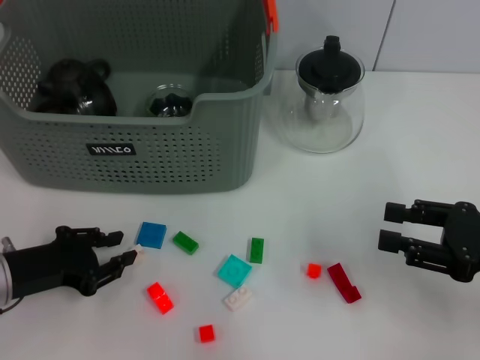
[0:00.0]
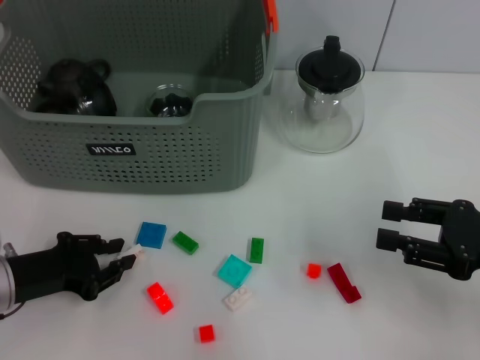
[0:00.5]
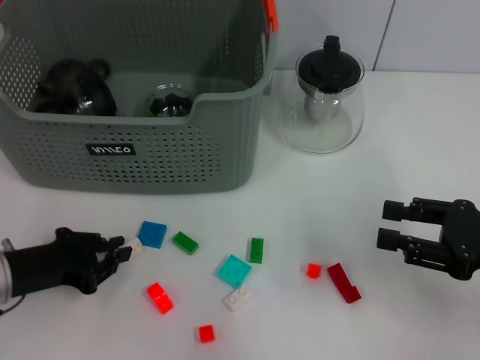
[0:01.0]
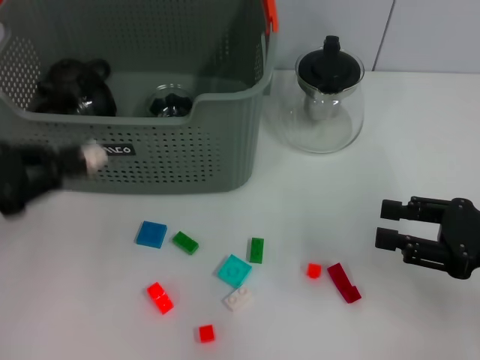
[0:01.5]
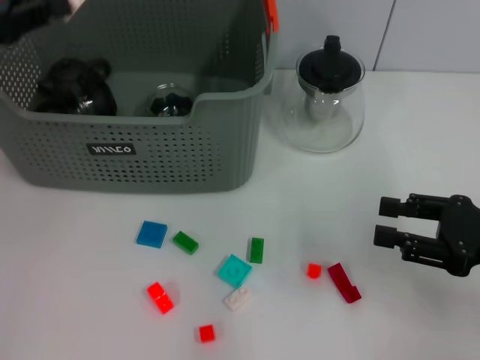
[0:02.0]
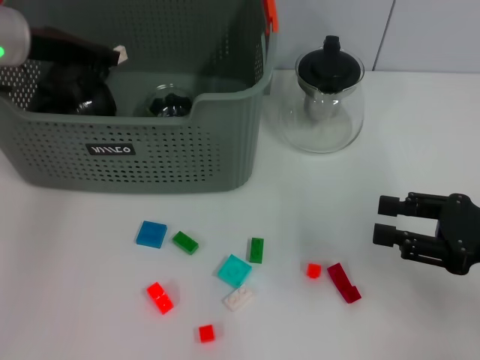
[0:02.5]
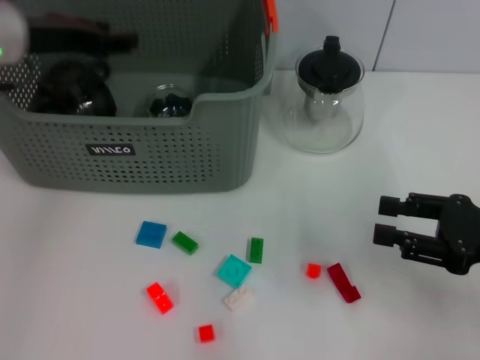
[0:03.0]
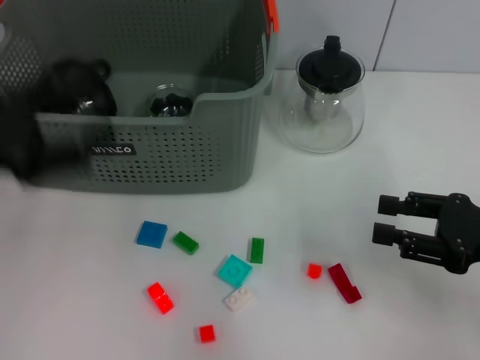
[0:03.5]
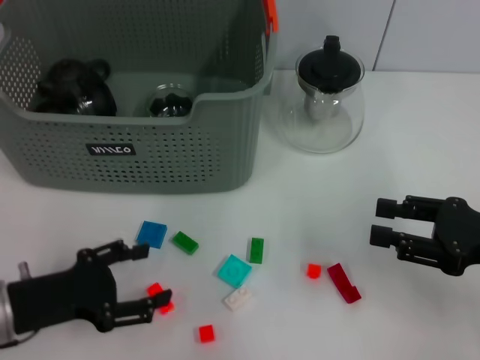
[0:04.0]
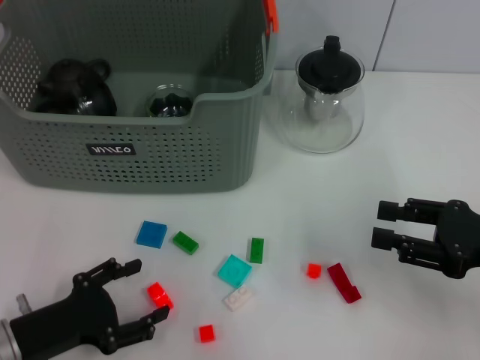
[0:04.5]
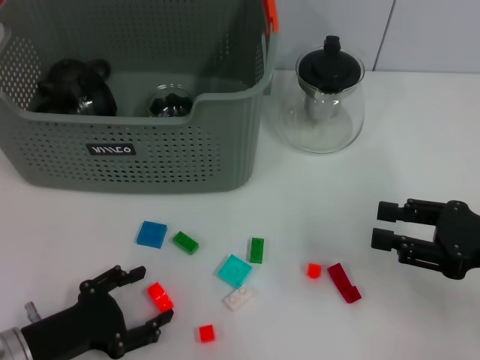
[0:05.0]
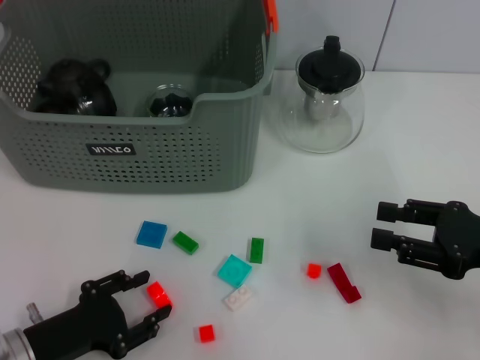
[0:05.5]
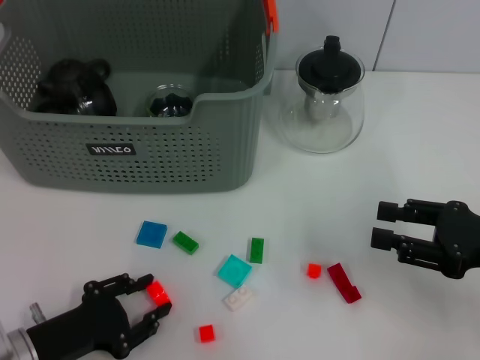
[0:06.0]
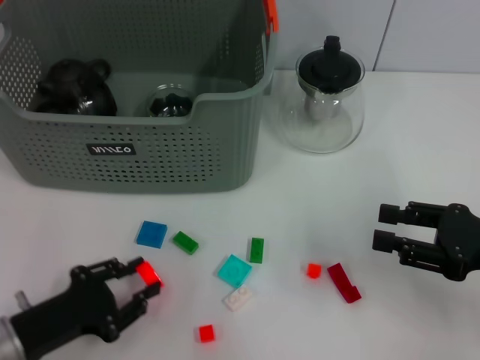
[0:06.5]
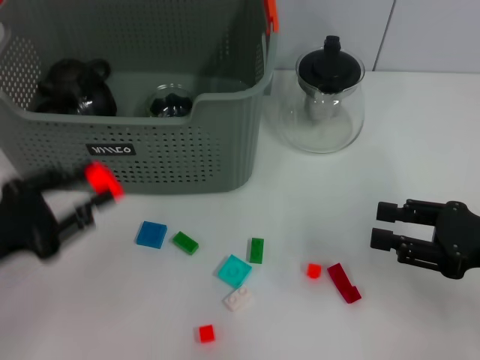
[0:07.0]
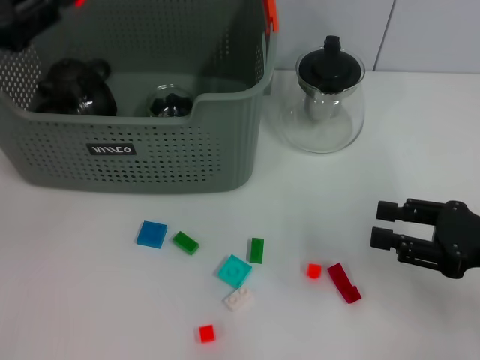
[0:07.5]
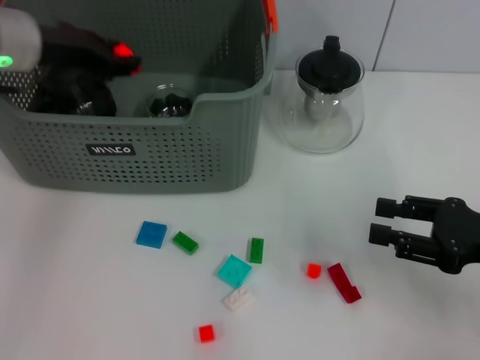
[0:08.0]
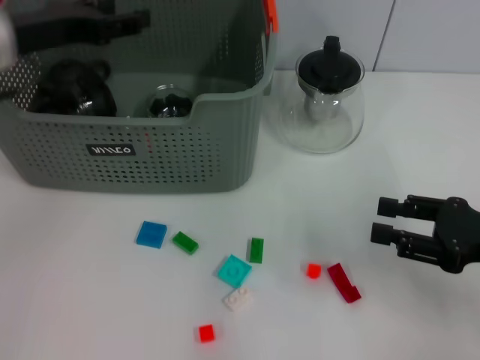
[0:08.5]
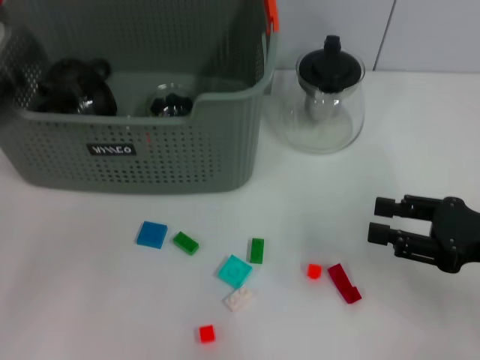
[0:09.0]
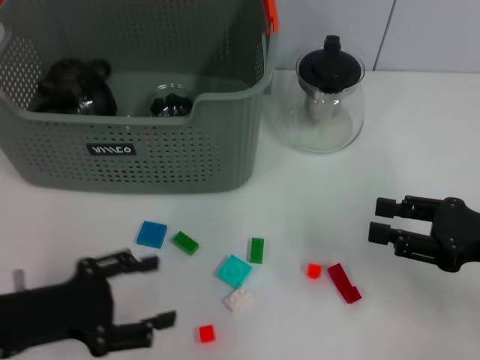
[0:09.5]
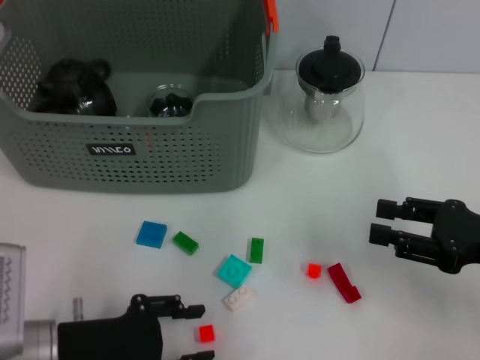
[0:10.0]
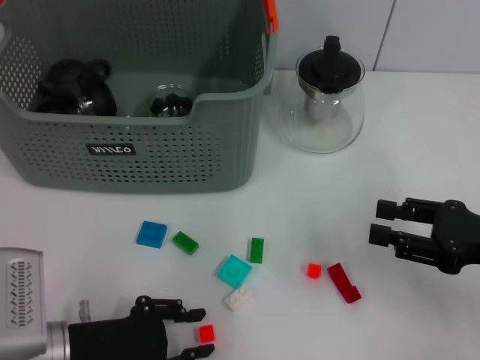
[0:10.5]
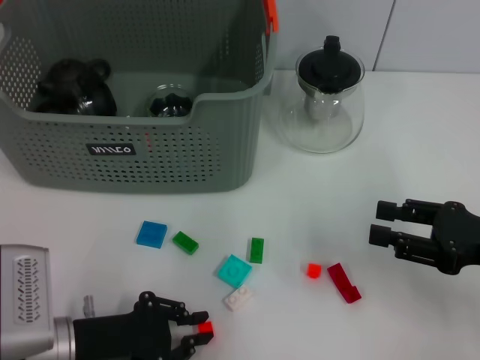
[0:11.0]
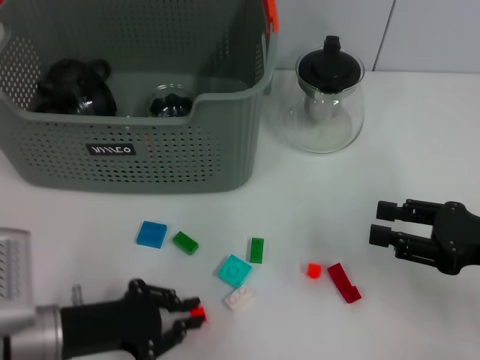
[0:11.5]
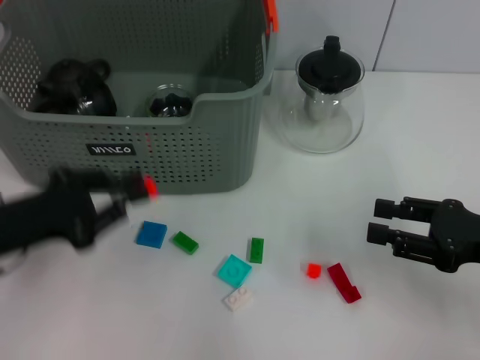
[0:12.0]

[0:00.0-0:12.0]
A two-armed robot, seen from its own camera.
Task of the whole recording: pick up the teacup on the table and place it into the storage bin, pick up the block on the table and place it into the storage bin.
Step, 0:01.5 to 0:03.0: Place the white block in the storage box with left gripper.
Step, 0:03.5 to 0:06.0: Grasp the orange block with left gripper.
Step, 0:06.5 to 0:08.5: Place the orange block in the storage box with left gripper.
Step, 0:09.0 to 0:11.0: Grasp the orange block with left gripper.
0:00.0 to 0:02.0: The left gripper moves upward and forward, roughly 20 cm.
0:02.0 to 0:04.0: The left gripper travels downward and backward by approximately 20 cm, and opens its fingers.
0:04.0 to 0:06.0: The left gripper goes some 5 cm downward.
0:06.0 to 0:08.0: The left gripper shifts about 30 cm forward and upward.
0:08.0 to 0:10.0: The left gripper is displaced backward and downward by about 30 cm, and opens and closes again.
0:10.0 to 0:12.0: The left gripper travels upward and to the left by about 10 cm, and closes.

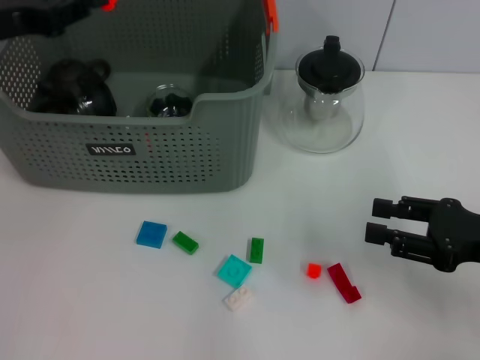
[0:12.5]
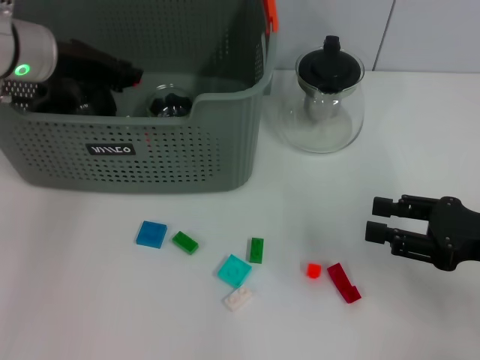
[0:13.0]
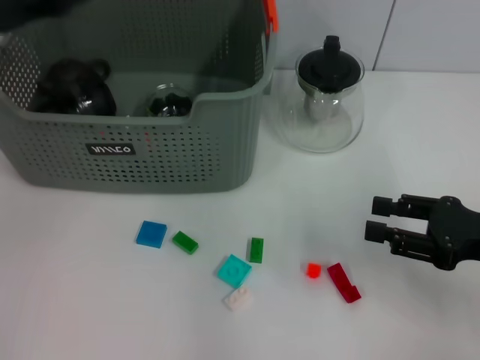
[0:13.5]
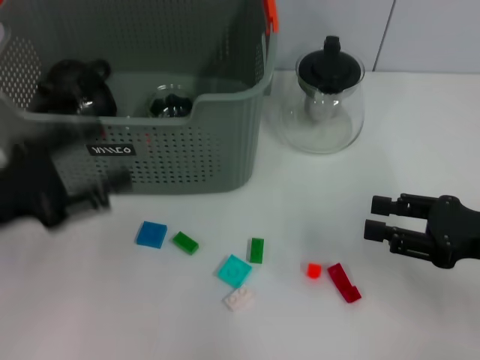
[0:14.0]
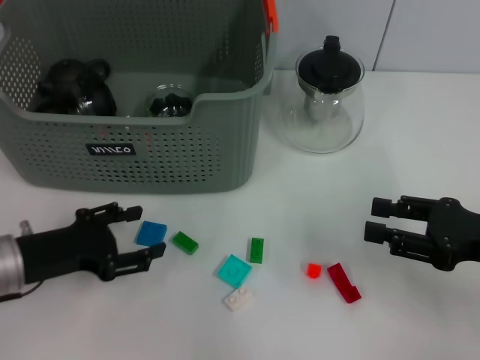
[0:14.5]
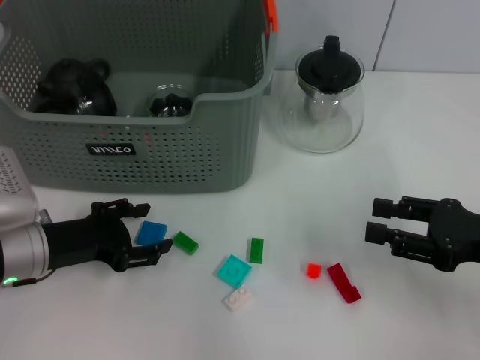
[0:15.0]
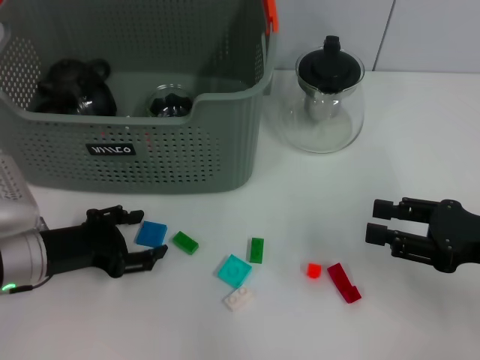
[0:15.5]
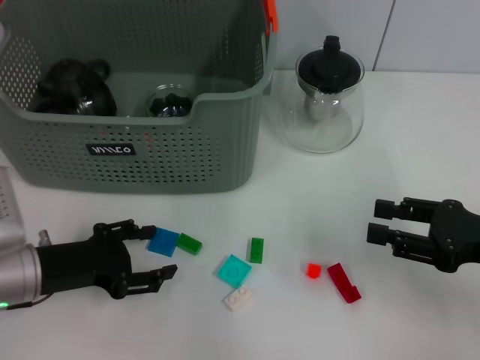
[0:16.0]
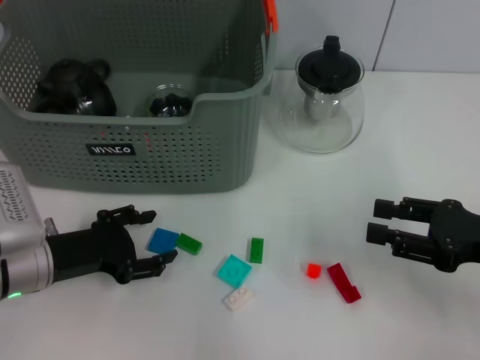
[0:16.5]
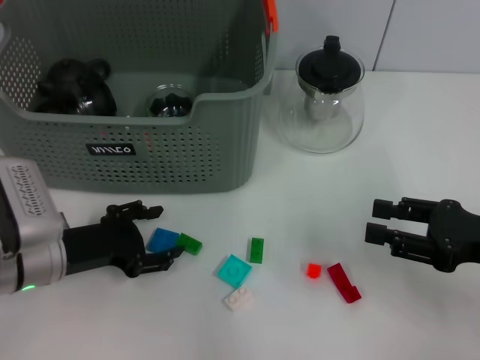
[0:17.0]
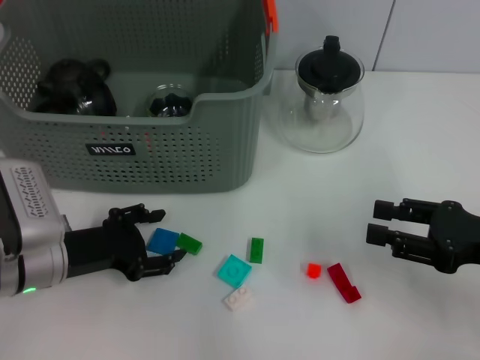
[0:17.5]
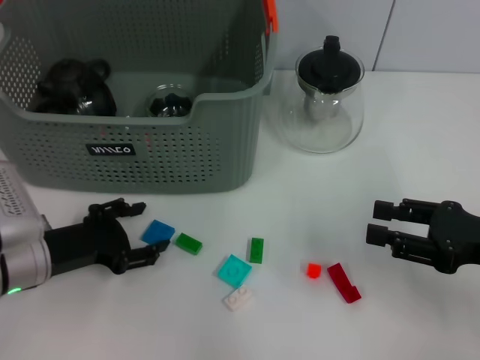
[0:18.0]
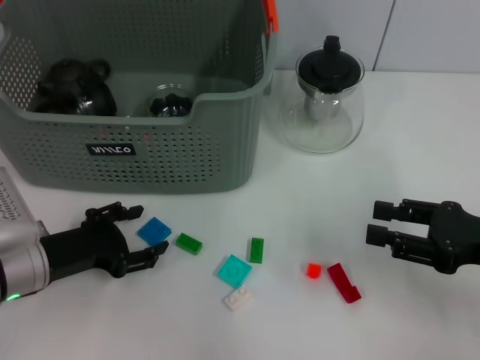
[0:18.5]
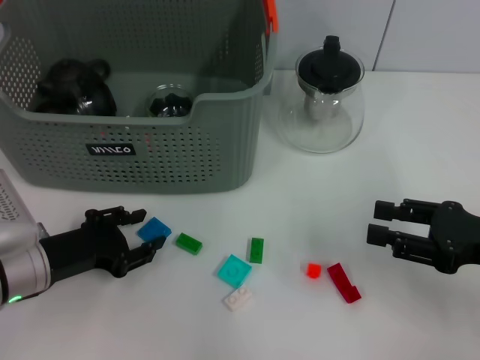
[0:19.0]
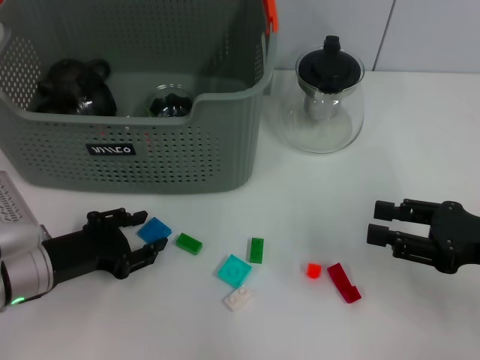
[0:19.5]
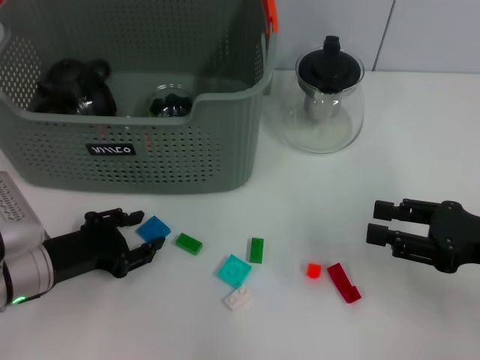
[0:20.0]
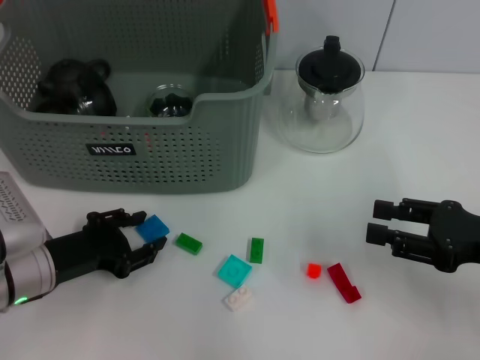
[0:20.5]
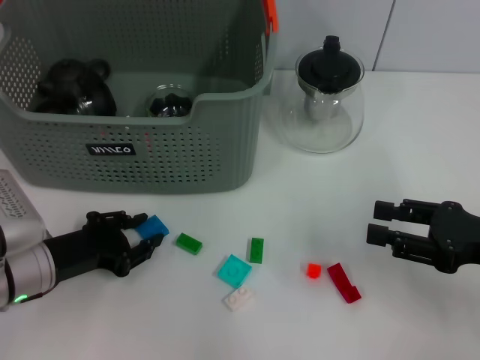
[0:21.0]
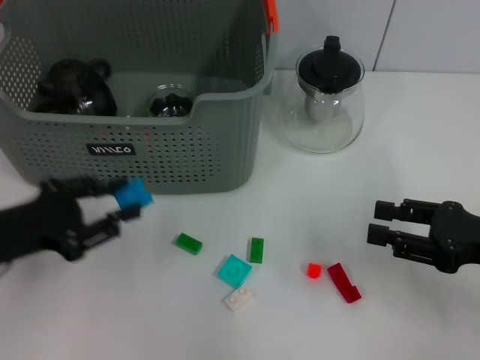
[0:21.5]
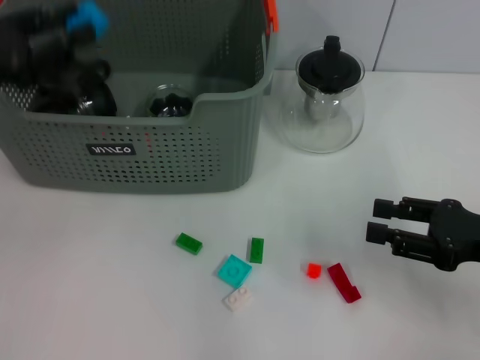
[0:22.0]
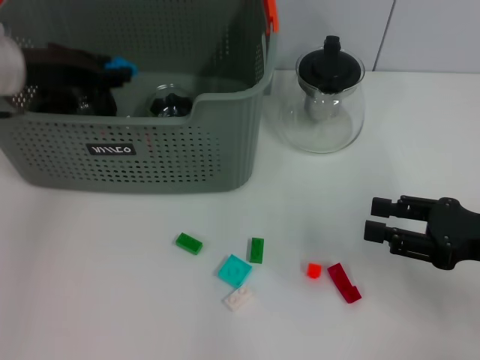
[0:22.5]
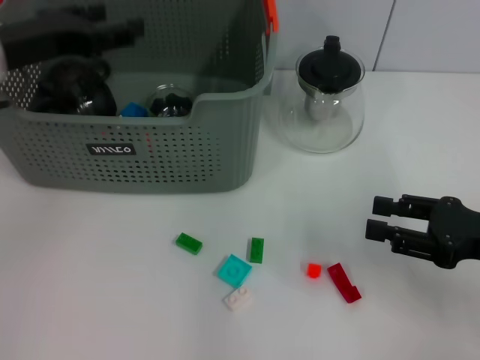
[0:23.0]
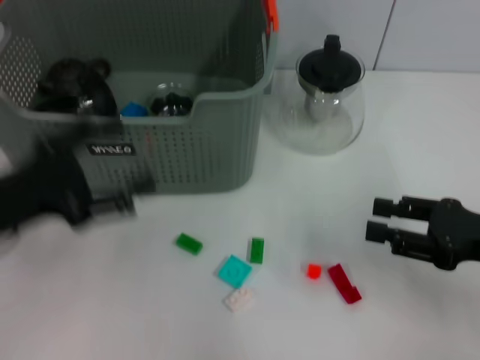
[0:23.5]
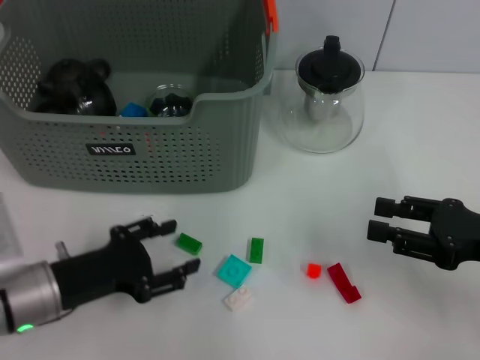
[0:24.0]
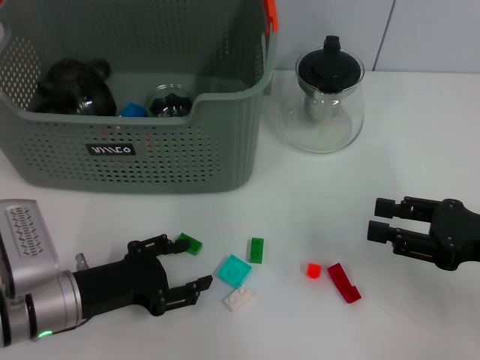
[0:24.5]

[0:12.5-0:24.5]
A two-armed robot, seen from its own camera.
Task of the whole recording: pick up the teacup on the table and place it into the storage bin, pick up the block on the table and place it into the storage bin.
Step, 0:14.0 to 0:21.0: Grasp the dark blue block with left gripper.
Step, 0:21.5 to 0:23.0: Place the dark blue block in the storage box with left gripper.
0:12.5 to 0:14.5: The left gripper goes some 20 cm downward and backward, and opens up.
0:14.5 to 0:18.5: The grippers move only a little.
0:18.5 to 0:20.5: Neither gripper changes place.
0:20.5 to 0:22.5: The left gripper is displaced upward and forward by roughly 20 cm.
0:22.5 to 0:24.5: The left gripper travels downward and backward by approximately 25 cm, and opens.

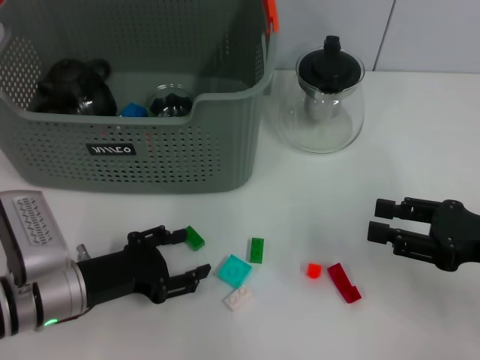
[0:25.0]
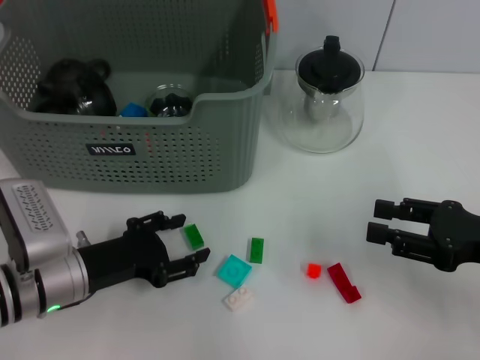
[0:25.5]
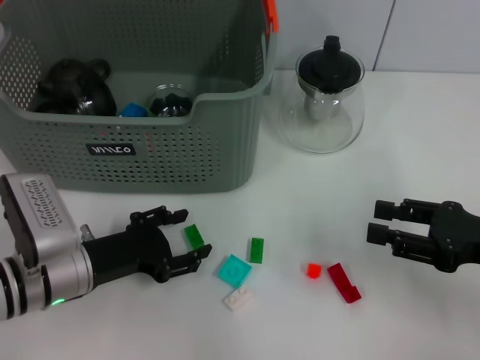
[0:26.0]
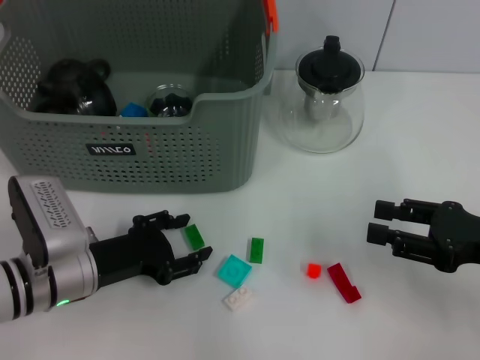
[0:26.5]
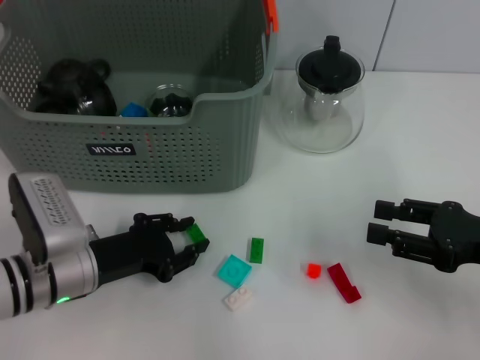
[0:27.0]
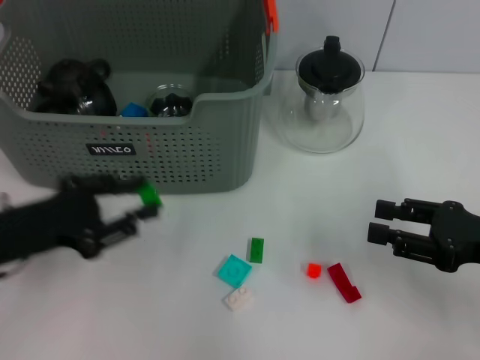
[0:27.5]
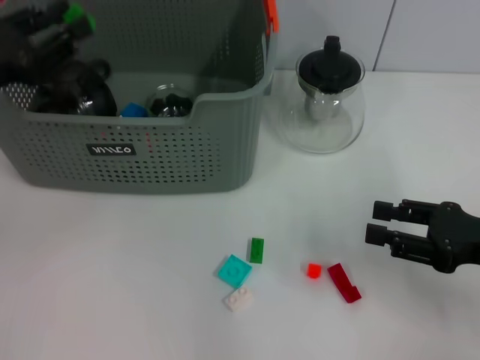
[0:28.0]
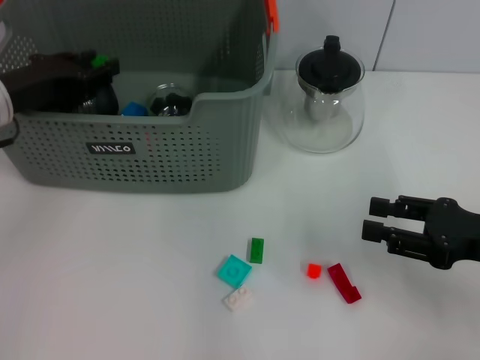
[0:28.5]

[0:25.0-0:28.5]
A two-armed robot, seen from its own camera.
Task of the whole recording: pick up the teacup on the table and place it into the storage bin, pick up the block on the table and place it into the storage bin.
Step, 0:25.0 to 0:27.0: Grasp the green block with left gripper.
0:25.0 to 0:27.0: The grippers move only a little.
0:27.0 to 0:28.5: The left gripper moves upward, forward and to the left, roughly 15 cm.
